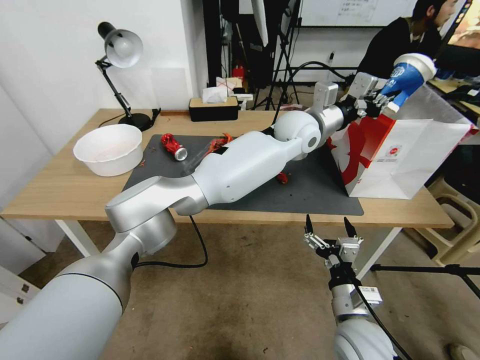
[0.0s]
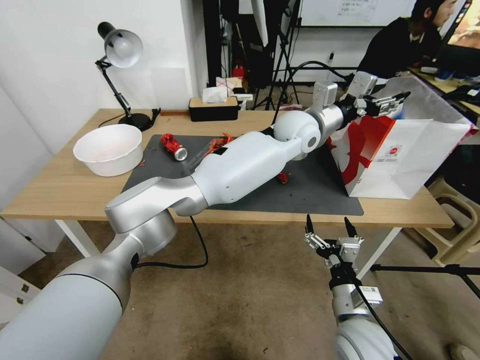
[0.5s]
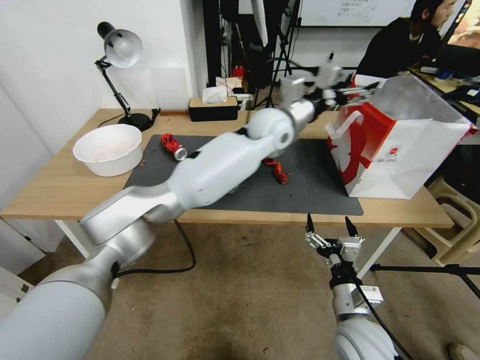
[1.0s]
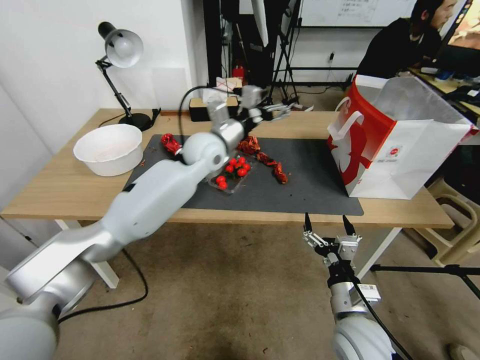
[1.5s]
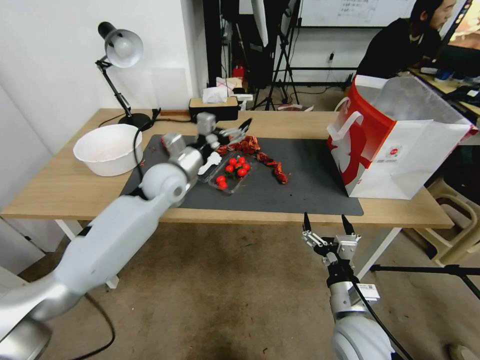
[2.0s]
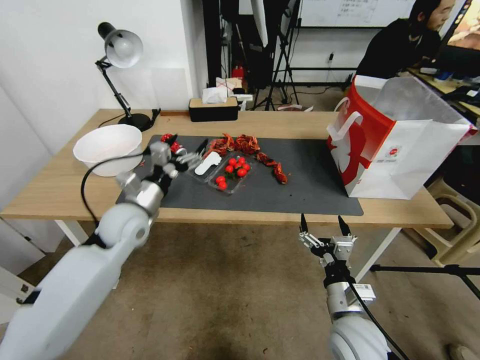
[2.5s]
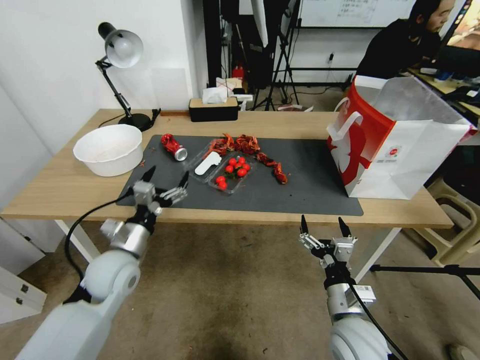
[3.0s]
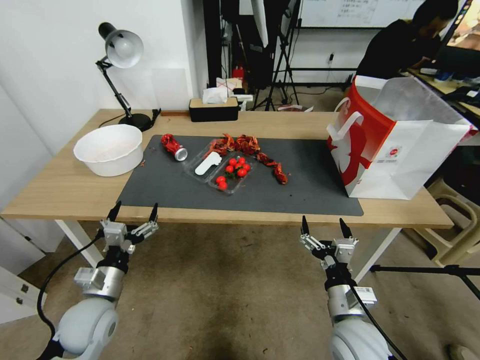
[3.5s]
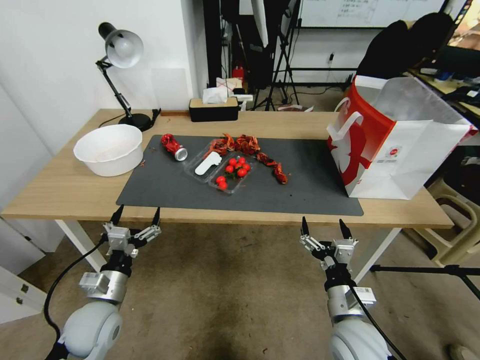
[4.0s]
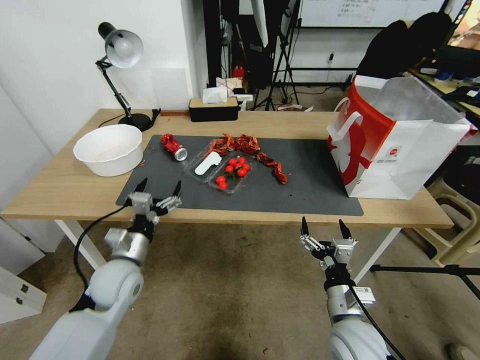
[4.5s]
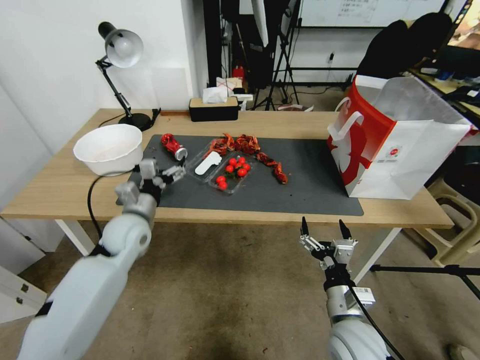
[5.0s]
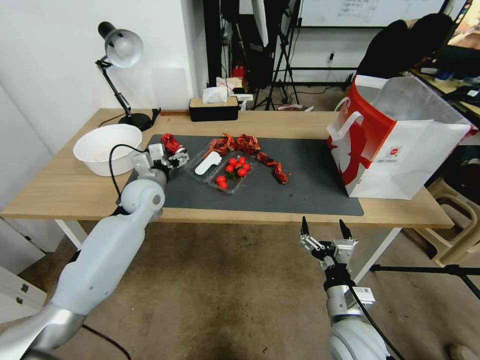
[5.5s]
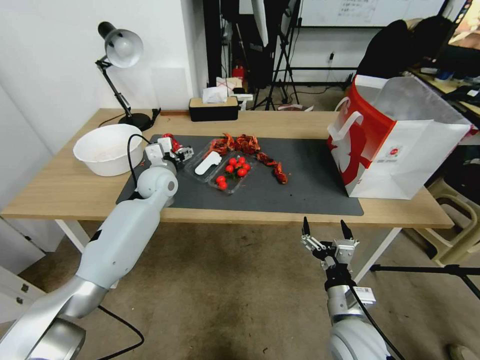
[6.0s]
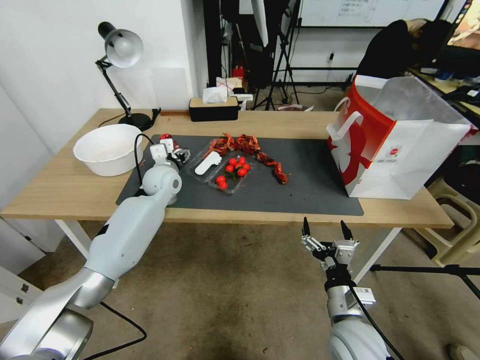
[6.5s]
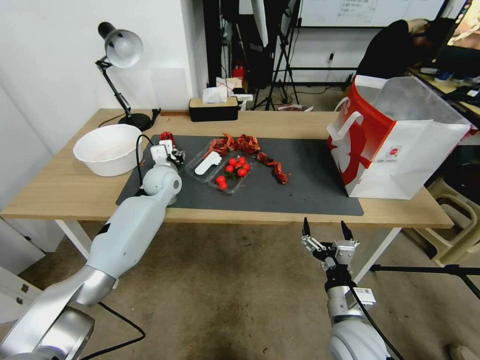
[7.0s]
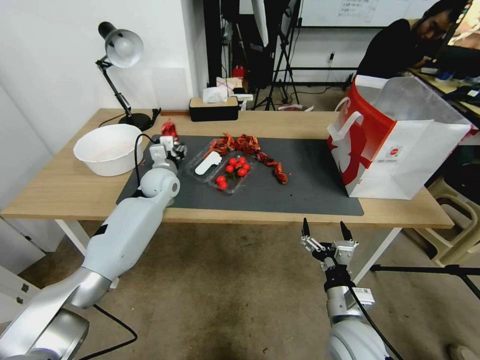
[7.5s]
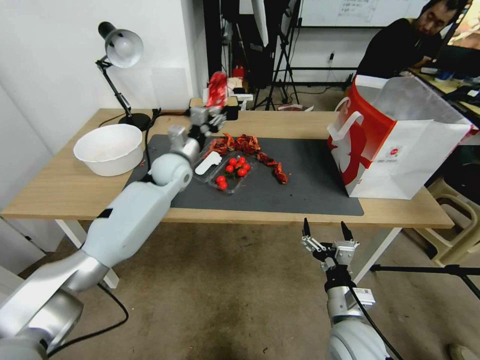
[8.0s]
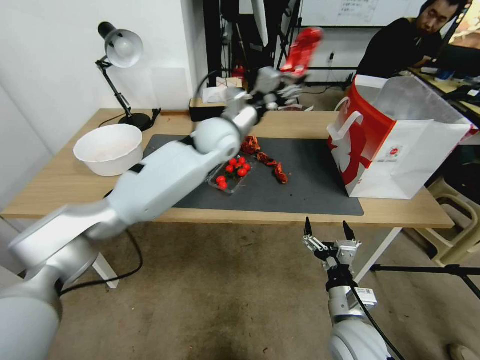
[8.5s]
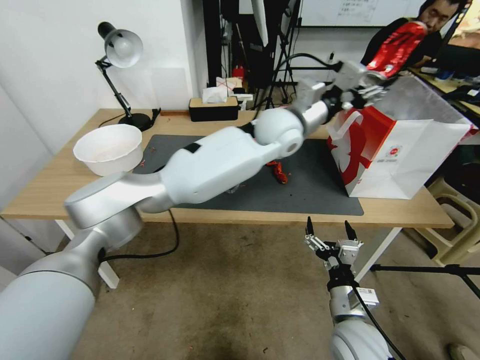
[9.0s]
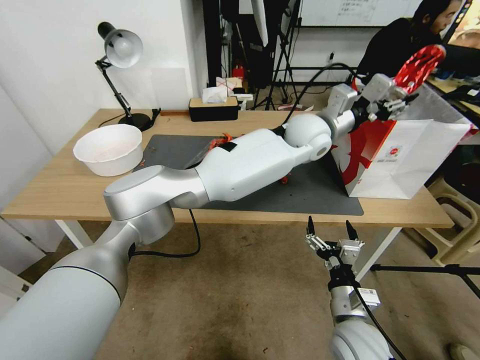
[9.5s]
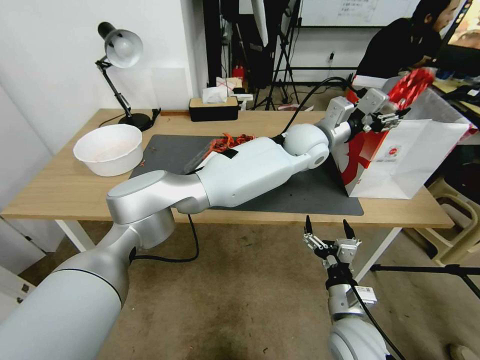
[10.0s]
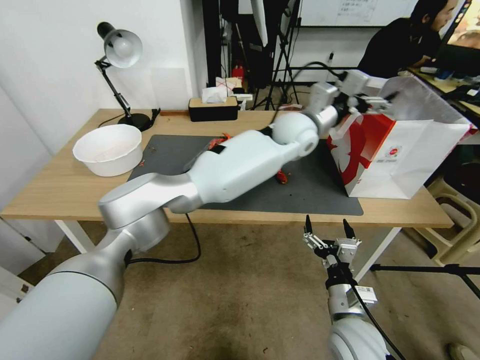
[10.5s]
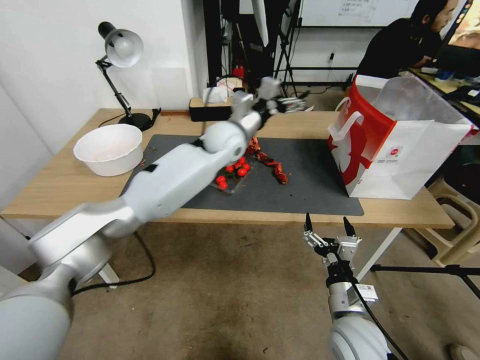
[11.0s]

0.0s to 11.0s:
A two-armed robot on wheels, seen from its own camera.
0.0s to 2.0s: The left gripper heads to the left, covering some 30 cm, and opens up.
2.0s to 3.5s: The left gripper heads backward, downward and to the left, covering some 30 cm.
3.5s to 5.5s: The left gripper goes approximately 25 cm forward and upward.
5.5s to 7.5s: The left gripper goes roughly 5 cm forward, and closes its fingers.
7.5s to 9.0s: The left gripper travels to the right and upward by about 35 cm.
9.0s to 11.0s: The left gripper moves to the left, about 10 cm, and opens.

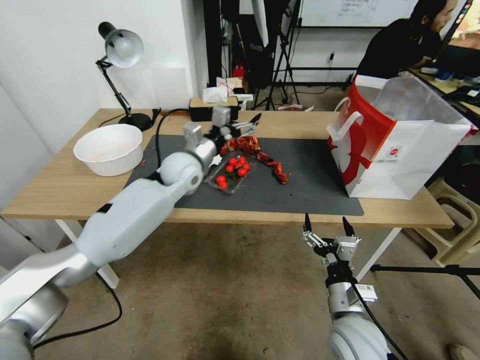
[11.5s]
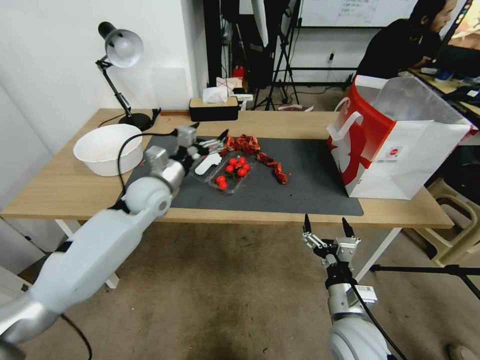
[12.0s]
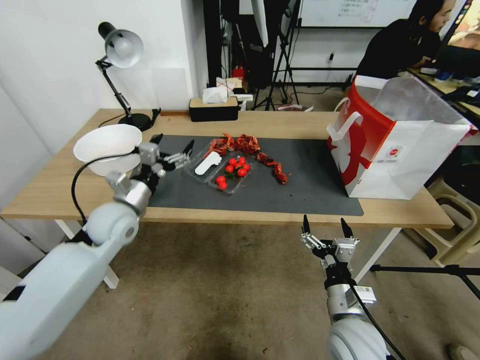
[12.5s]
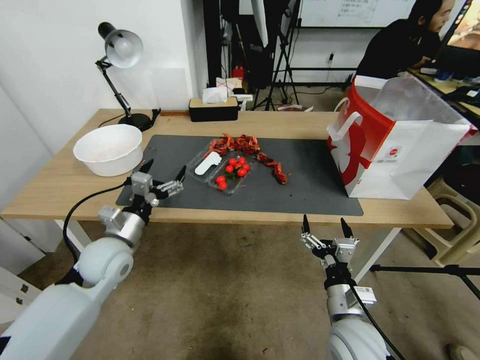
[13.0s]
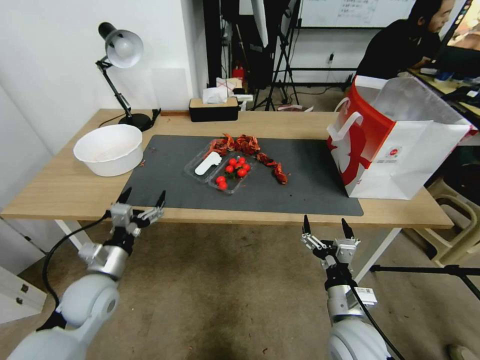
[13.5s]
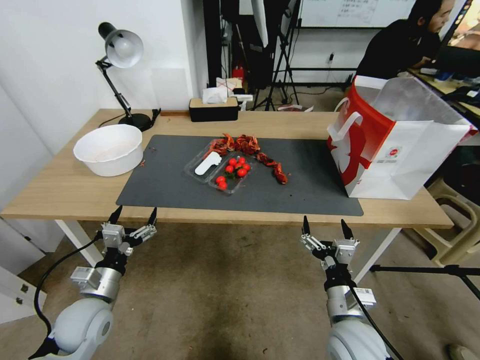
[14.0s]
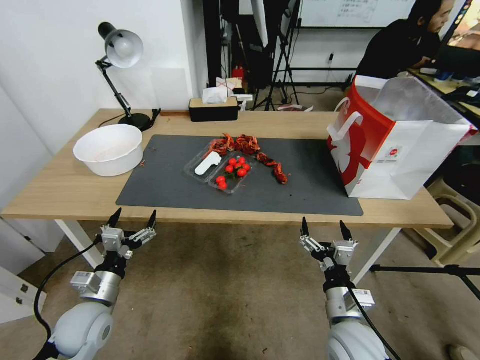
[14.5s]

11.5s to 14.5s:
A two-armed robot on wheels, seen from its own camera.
11.5s to 13.0s: The left gripper goes some 25 cm backward, to the left and downward.
13.0s to 14.5s: The left gripper heads backward and downward, covering roughly 15 cm.
